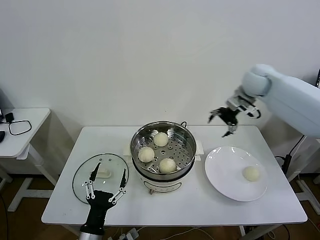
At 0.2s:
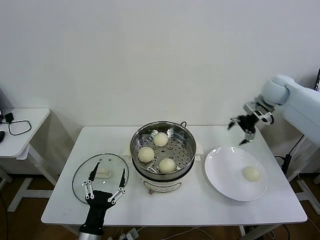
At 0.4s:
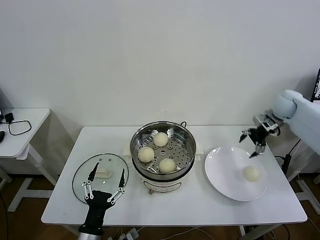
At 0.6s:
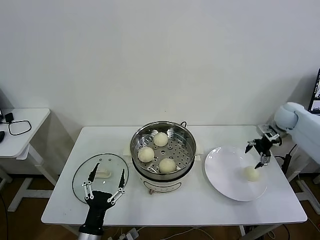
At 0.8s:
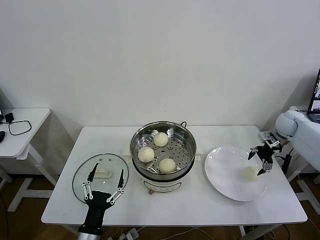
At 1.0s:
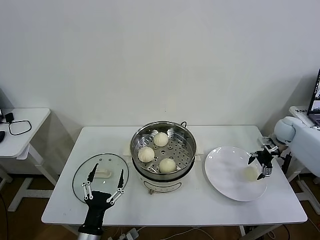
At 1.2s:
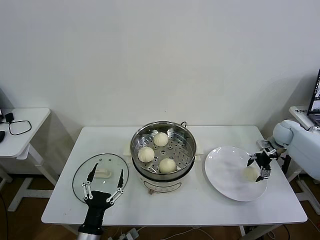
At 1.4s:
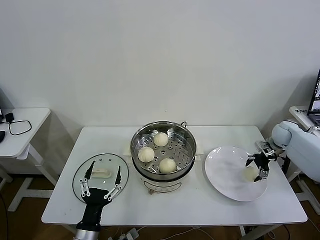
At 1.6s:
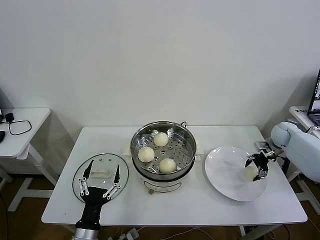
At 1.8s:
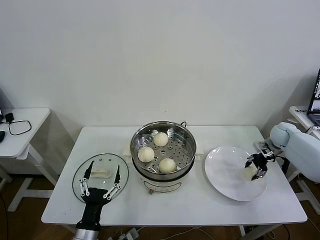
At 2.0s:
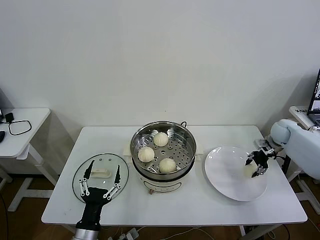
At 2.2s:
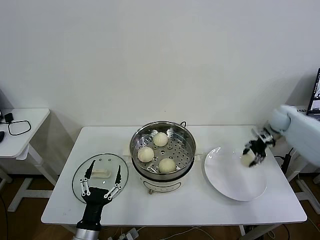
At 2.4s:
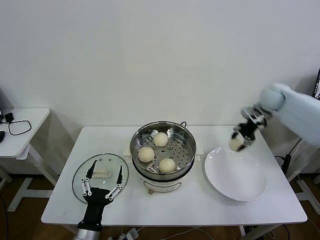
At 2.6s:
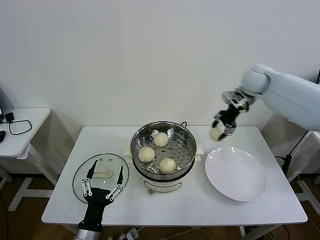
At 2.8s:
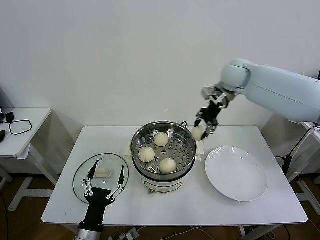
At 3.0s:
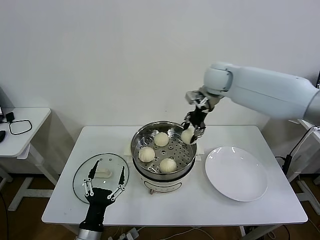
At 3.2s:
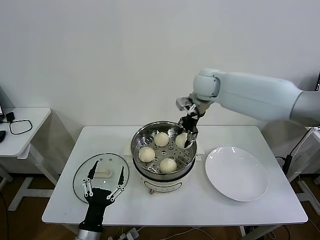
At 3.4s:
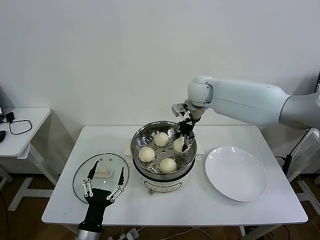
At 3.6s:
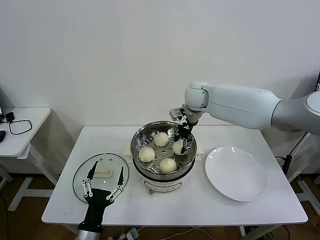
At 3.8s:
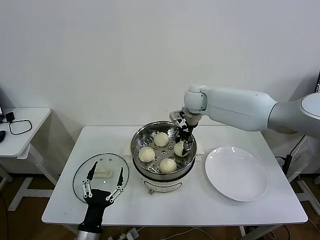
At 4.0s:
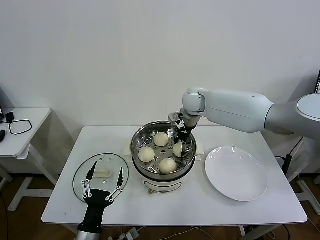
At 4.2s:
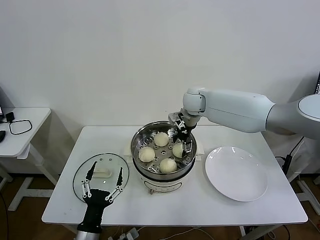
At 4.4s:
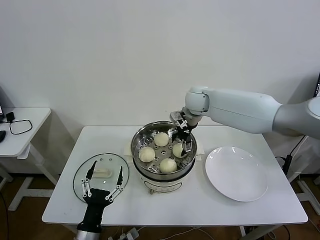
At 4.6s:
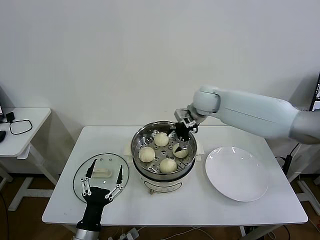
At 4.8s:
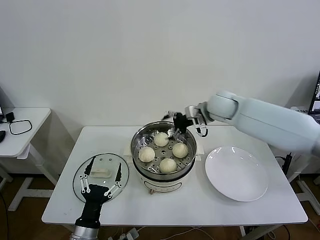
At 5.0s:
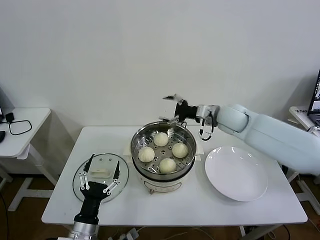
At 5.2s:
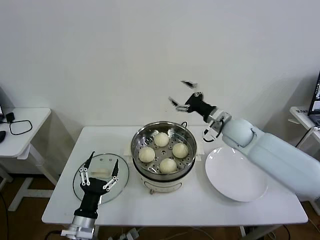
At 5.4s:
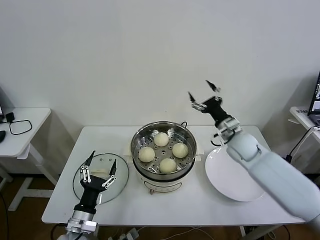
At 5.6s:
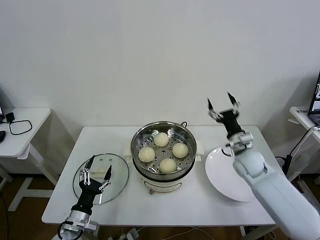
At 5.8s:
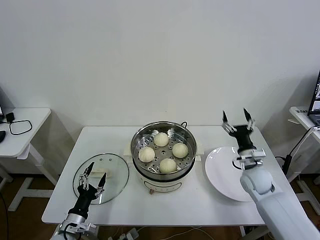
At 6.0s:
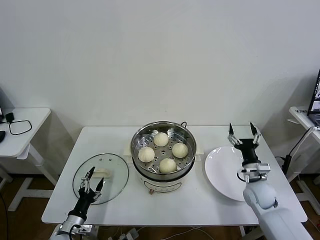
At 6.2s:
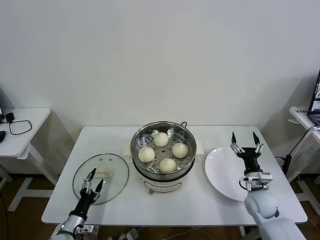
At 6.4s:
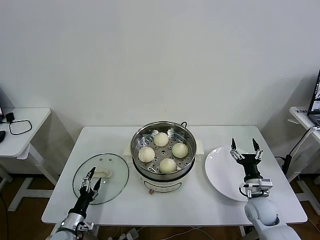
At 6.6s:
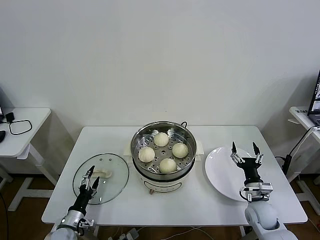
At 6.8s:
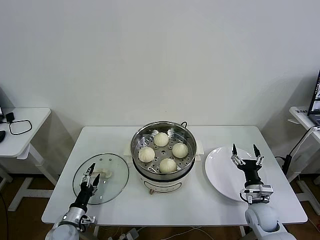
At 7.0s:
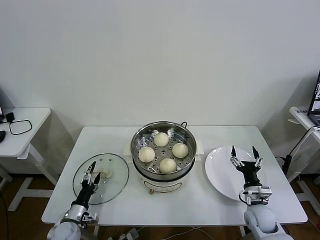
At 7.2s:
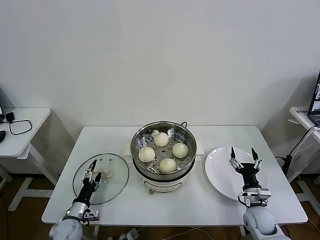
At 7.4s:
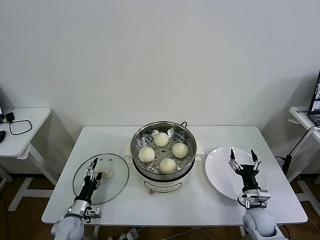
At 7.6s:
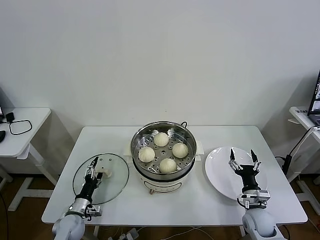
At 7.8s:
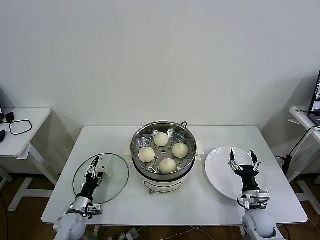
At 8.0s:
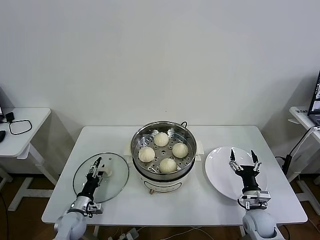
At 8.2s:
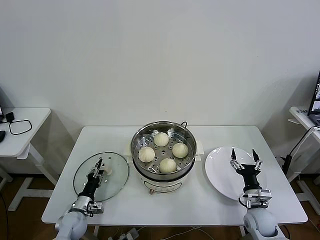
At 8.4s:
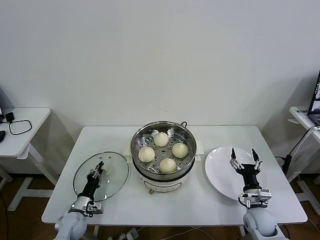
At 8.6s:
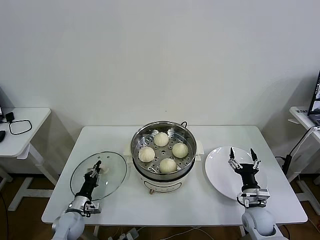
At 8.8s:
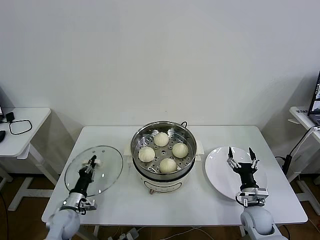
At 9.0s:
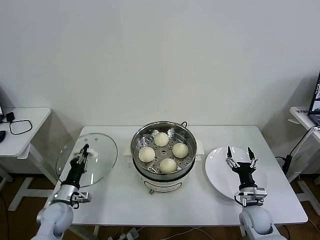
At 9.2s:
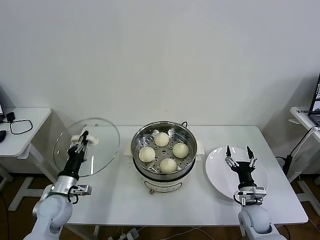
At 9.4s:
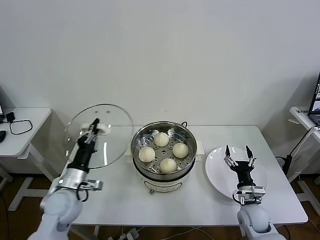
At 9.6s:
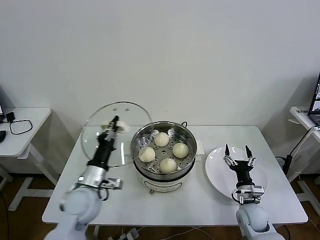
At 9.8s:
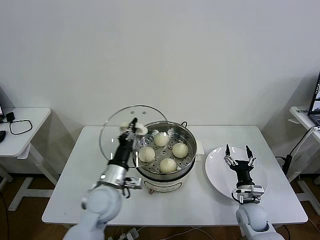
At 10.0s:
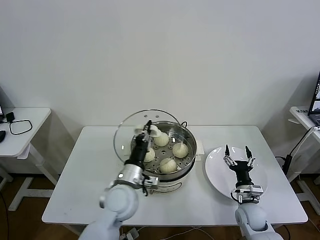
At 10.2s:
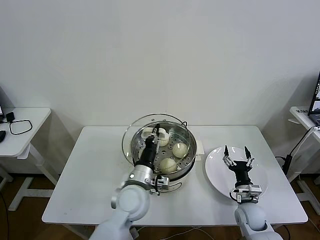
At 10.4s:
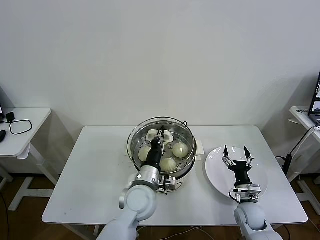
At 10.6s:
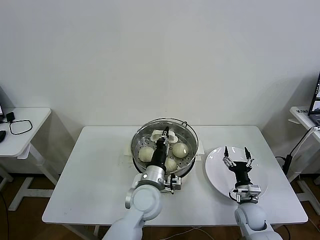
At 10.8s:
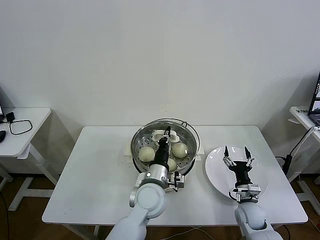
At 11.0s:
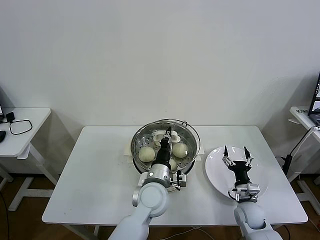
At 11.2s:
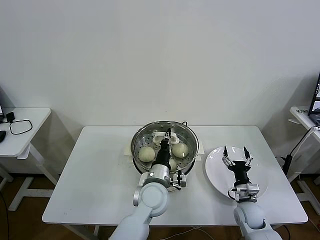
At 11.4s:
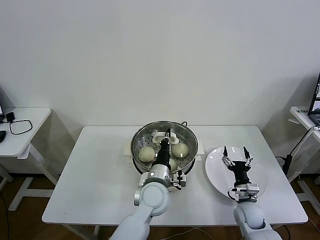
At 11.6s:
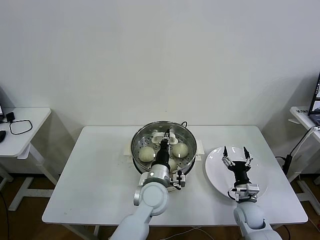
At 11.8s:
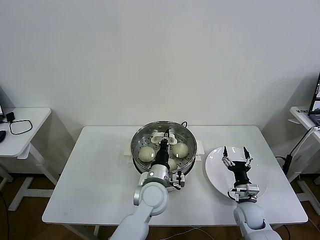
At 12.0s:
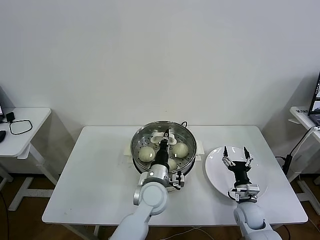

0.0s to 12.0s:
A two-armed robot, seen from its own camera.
Task of the whole recording: take steamed baozi put them in steamer then cover it.
Step, 0.0s to 2.0s: Grasp the baozi in the plate with right gripper.
Step, 2.2s to 4.0s: Place the baozi on the steamer with right gripper.
Step, 4.4s to 8.6s: Grasp the pot lid with left gripper.
0.0s to 1.6s: The right gripper travels downward and to the right by about 30 cm.
1.6s to 3.0s: The right gripper heads to the left and upward, covering roughly 40 cm, and closes its fingers.
3.0s to 4.4s: The right gripper travels downward and to the left by approximately 10 cm, and opens.
4.4s to 6.0s: The left gripper heads to the left, downward and forward, covering roughly 15 cm, while the right gripper is displaced downward, backward and to the right by about 40 cm.
6.0s to 7.6s: The left gripper moves forward, approximately 5 cm. The right gripper shifts roughly 10 cm backward and downward.
7.6s to 9.0s: The left gripper moves upward, roughly 5 cm, and closes up.
9.0s to 10.4s: The left gripper goes approximately 30 cm to the right and upward.
10.4s to 12.0s: The left gripper moves some 5 cm.

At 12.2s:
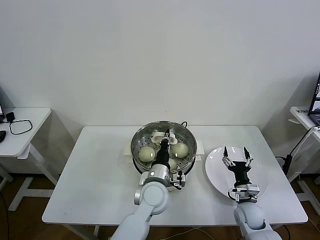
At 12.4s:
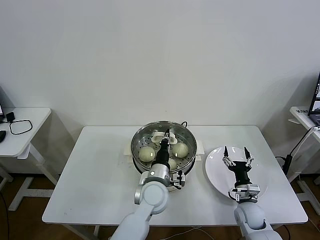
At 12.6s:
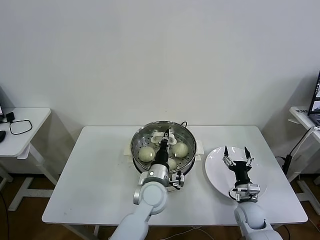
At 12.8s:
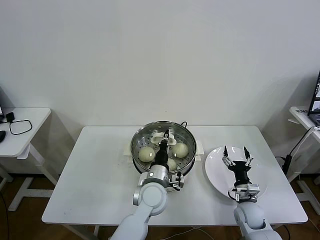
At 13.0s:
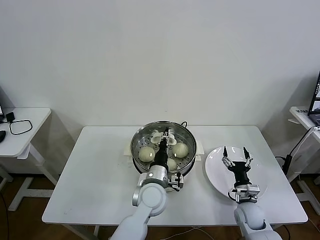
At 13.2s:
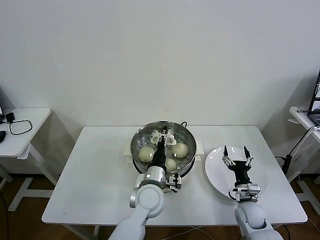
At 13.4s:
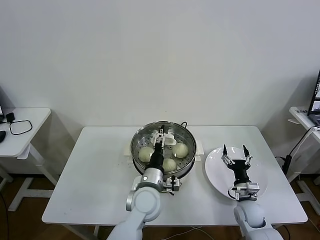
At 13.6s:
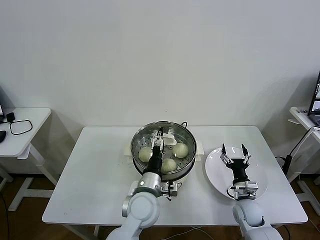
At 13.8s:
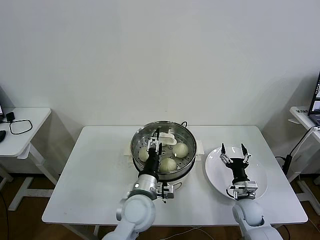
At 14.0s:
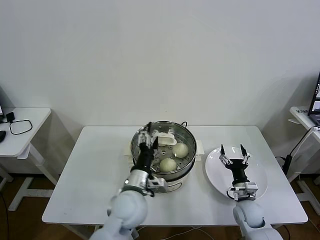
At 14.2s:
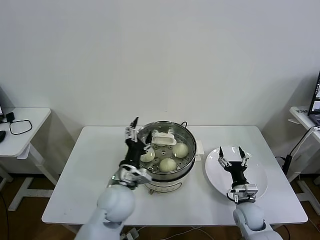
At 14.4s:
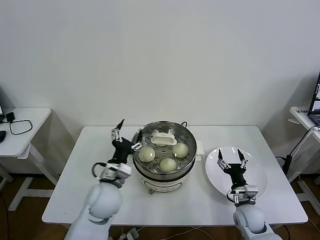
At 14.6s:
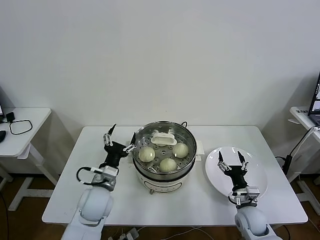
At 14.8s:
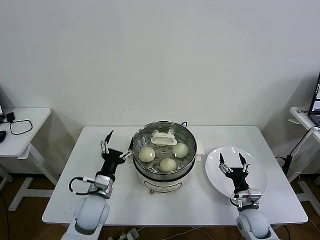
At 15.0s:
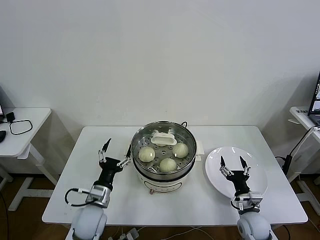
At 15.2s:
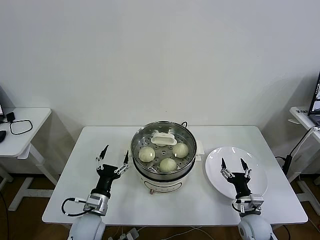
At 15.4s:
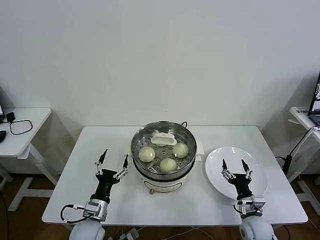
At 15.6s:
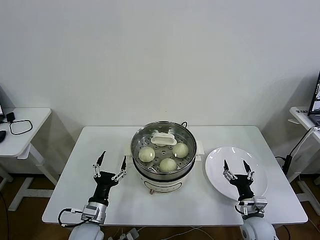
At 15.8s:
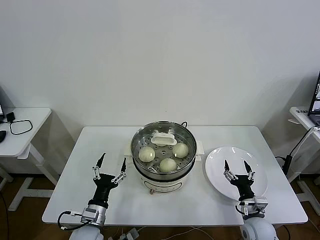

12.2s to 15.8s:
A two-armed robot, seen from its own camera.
Task of the whole recording: take steamed baozi put them in steamer then cover it.
12.2s to 14.0s: The left gripper moves to the left, some 5 cm, and opens.
14.0s to 15.8s: The left gripper is displaced to the left and downward by some 20 cm; the right gripper shifts some 5 cm backward.
